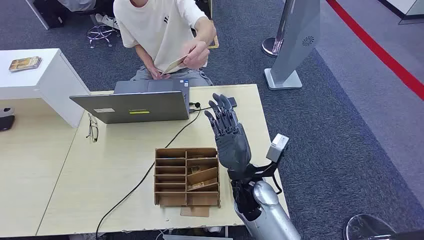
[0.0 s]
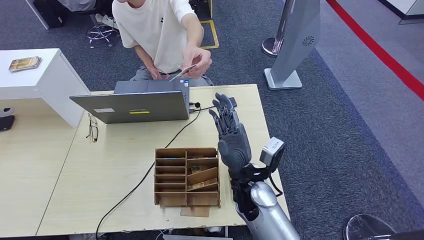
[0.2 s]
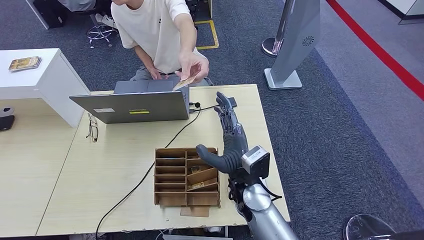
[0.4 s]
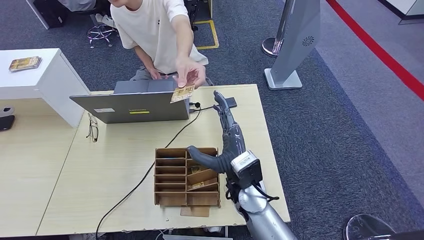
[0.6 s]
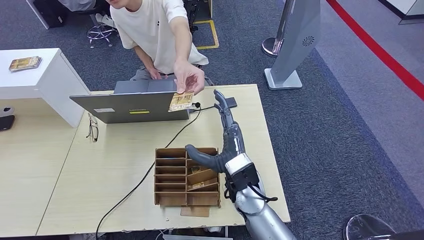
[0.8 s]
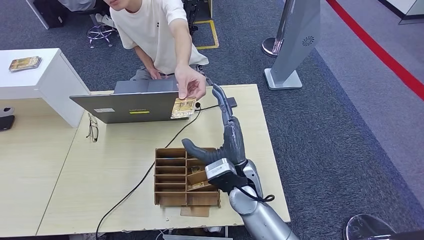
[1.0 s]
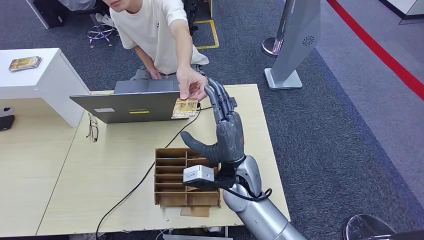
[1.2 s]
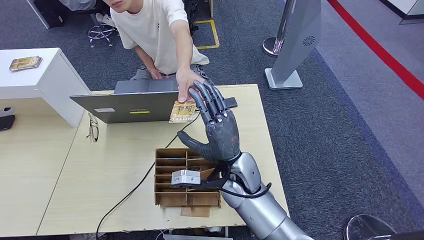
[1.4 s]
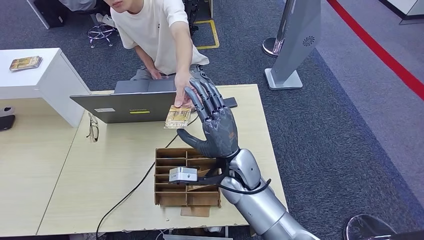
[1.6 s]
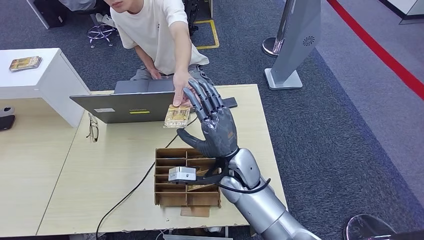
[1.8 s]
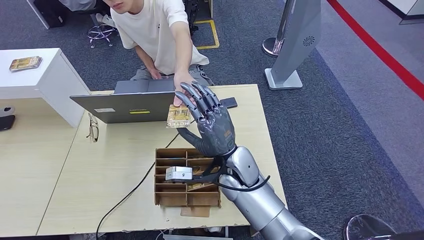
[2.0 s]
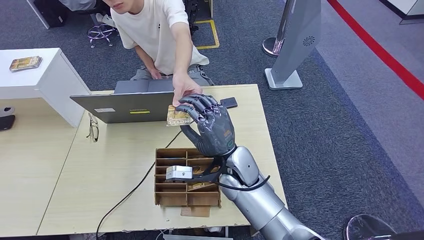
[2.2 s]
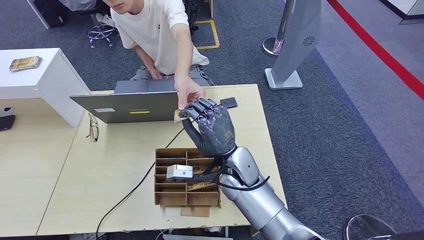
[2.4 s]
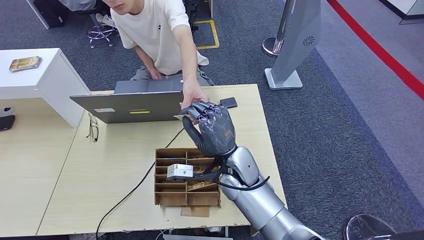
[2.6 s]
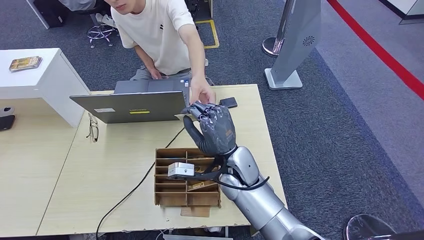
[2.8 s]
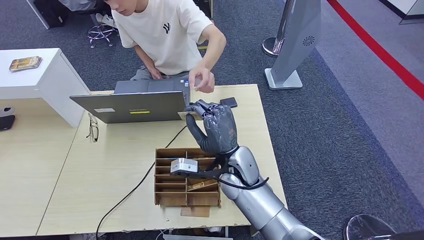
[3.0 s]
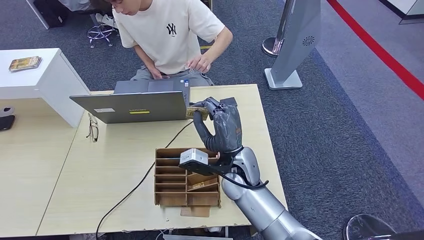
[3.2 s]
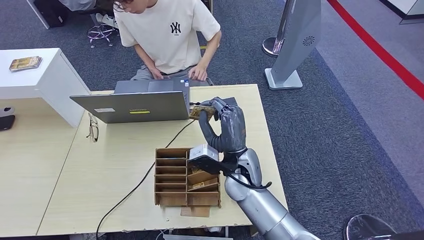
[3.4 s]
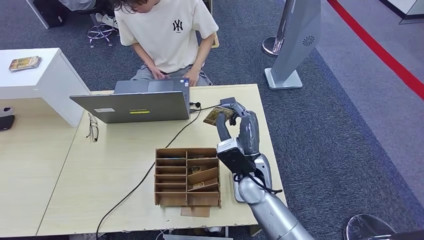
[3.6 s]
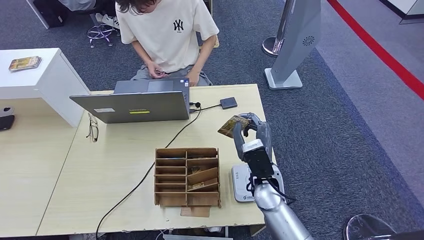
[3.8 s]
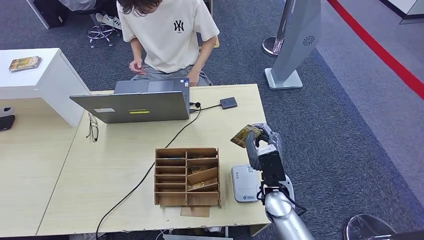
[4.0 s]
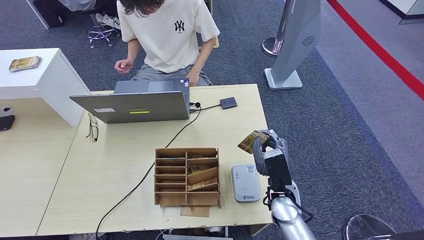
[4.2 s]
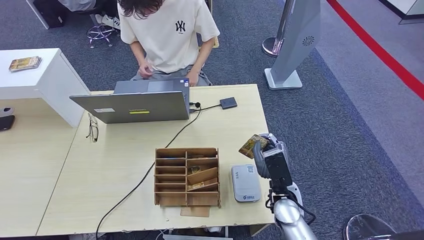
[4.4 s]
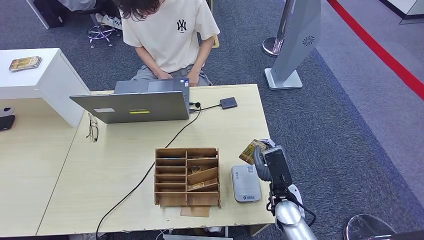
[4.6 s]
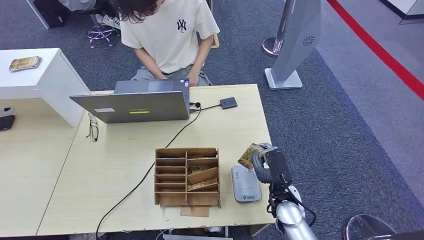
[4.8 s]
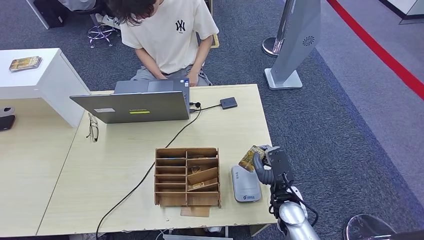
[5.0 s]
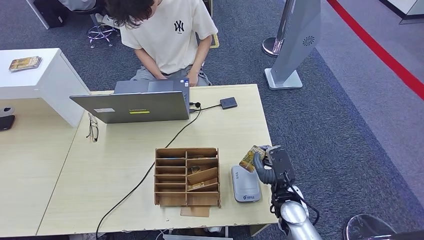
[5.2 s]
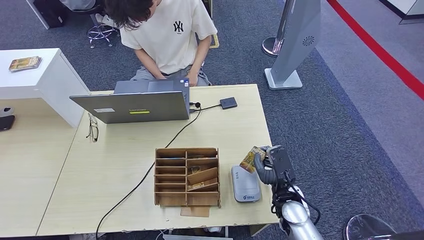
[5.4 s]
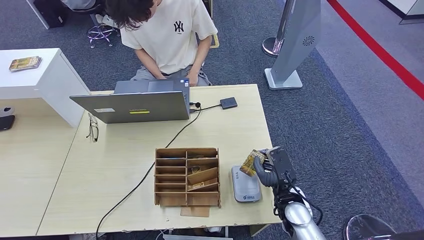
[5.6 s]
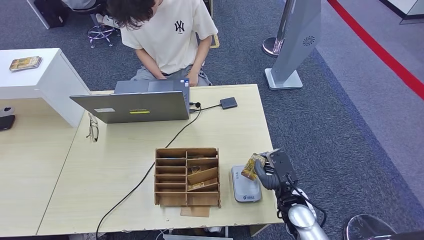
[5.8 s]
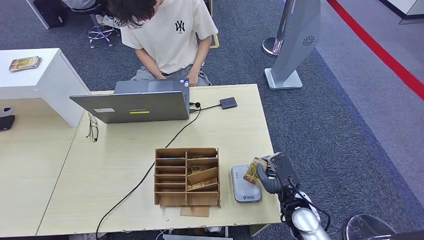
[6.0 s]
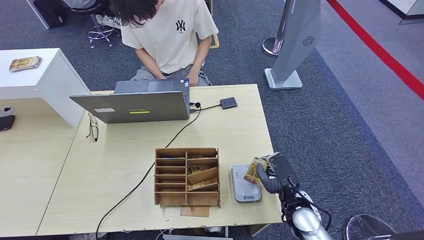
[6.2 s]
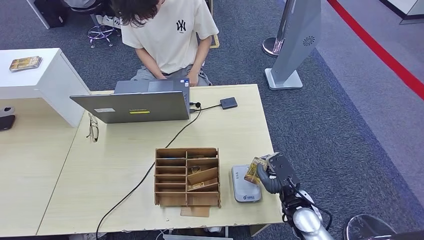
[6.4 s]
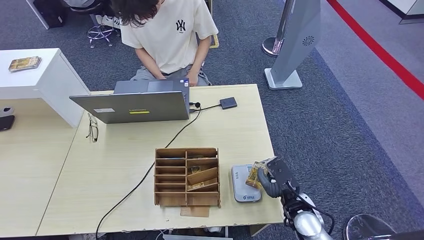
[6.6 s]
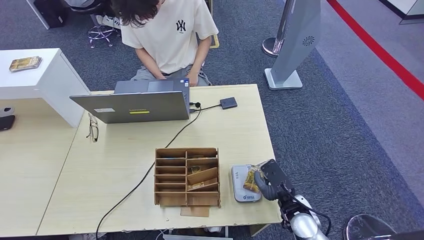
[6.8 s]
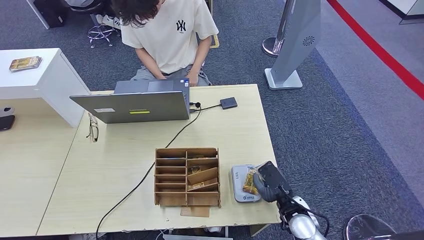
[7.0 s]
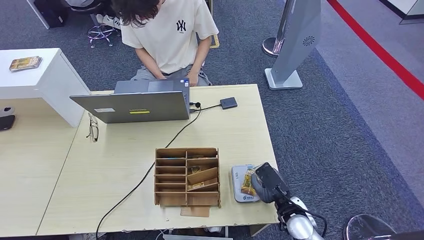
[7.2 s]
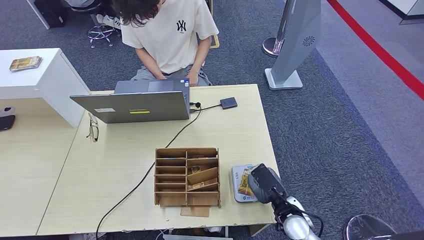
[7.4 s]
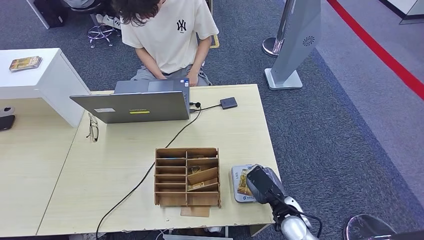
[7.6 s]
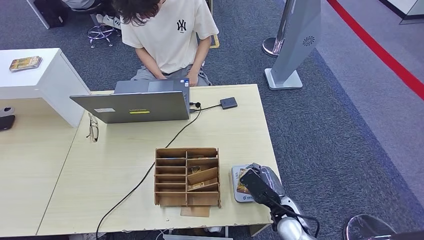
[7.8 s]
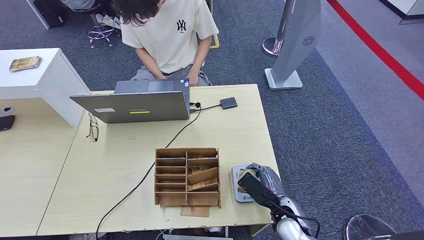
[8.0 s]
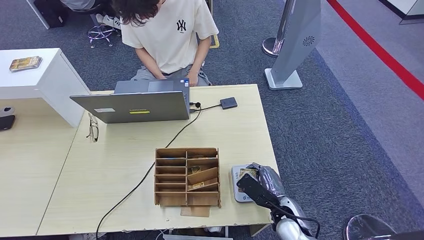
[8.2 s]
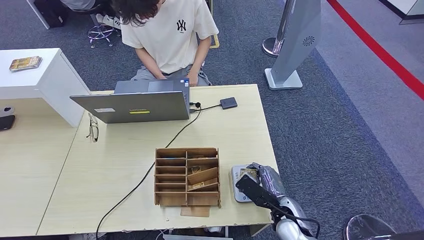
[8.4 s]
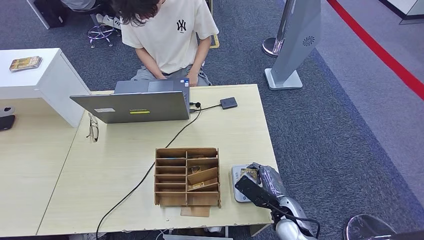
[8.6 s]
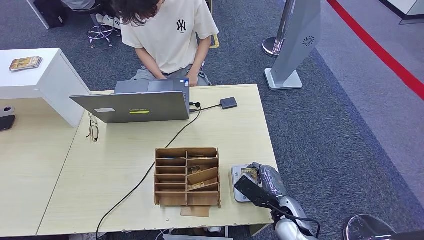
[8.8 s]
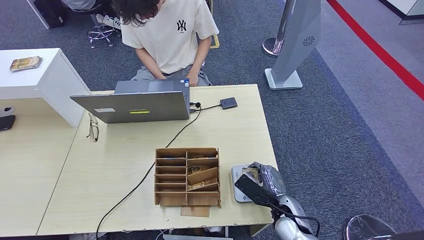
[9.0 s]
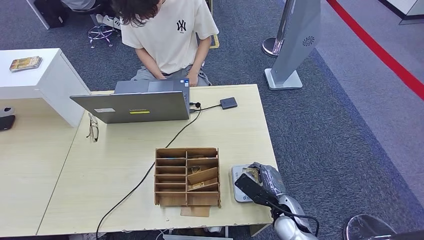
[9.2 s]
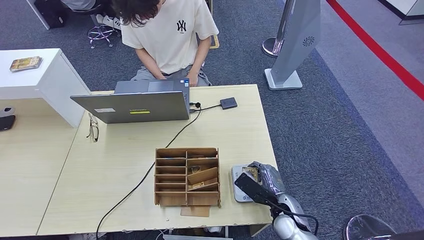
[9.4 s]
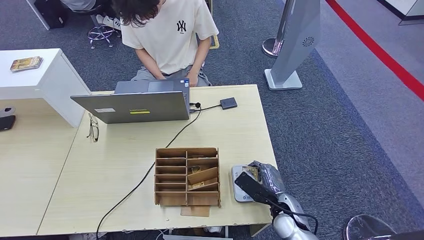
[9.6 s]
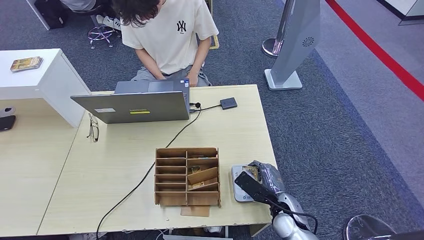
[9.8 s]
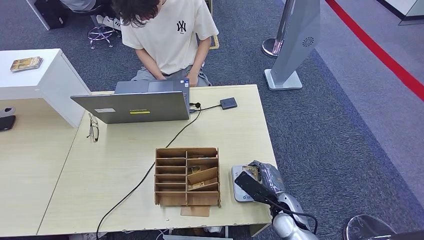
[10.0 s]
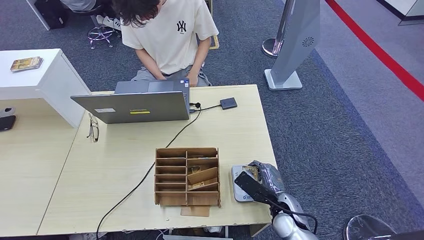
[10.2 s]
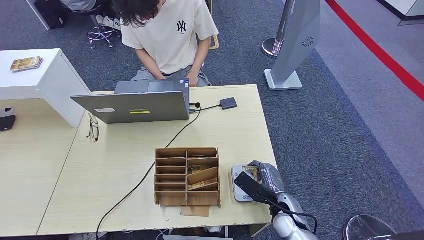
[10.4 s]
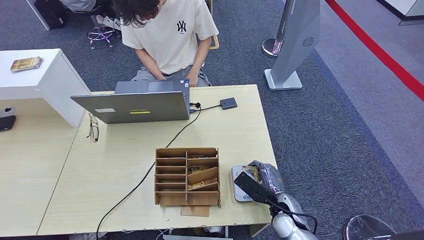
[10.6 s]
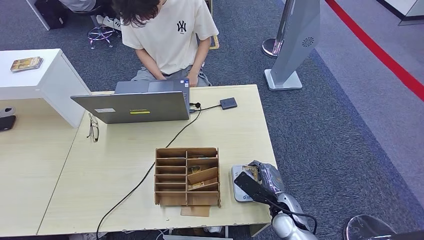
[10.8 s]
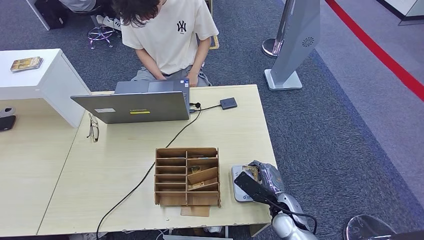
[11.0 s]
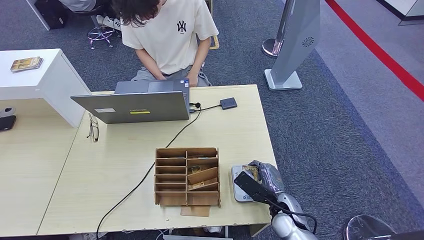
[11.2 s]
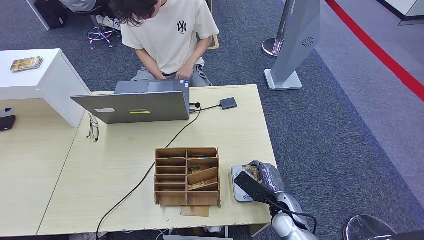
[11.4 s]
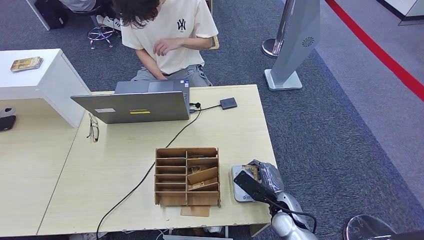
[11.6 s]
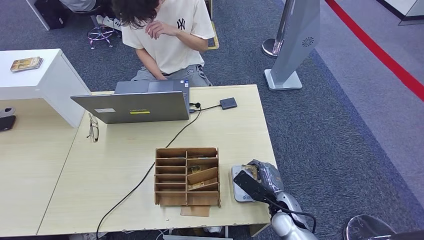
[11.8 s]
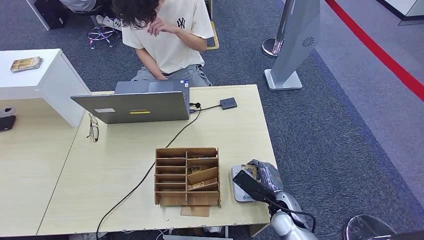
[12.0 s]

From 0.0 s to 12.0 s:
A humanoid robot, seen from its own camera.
Step, from 0.0 s to 2.8 s: Take the ID card from the person's hand.
Step, from 3.0 s to 7.8 s: Place the ID card on the card reader.
From 1.6 s to 3.0 s: There are only small adjustments of the hands.
From 3.0 s to 4.4 s: The right hand travels to the right, downward and backward by roughly 15 cm.
From 4.4 s to 6.0 s: The right hand moves roughly 5 cm.
From 6.0 s to 7.6 s: The hands stay close to where they were, moving slightly.
From 7.6 s to 9.0 s: There are only small adjustments of the hands.
From 9.0 s to 10.4 s: Both hands stay about where they are.
From 10.4 s to 12.0 s: Both hands stay put.

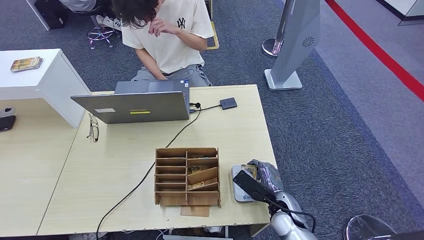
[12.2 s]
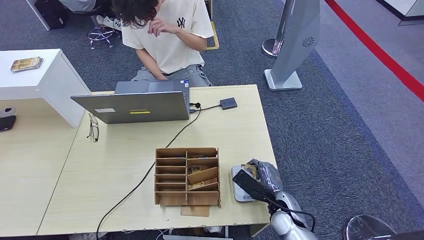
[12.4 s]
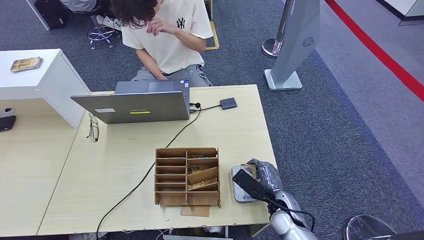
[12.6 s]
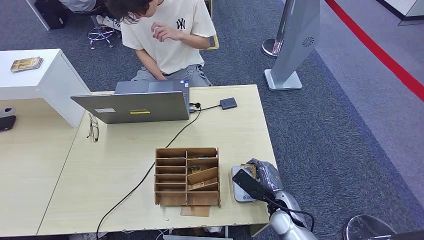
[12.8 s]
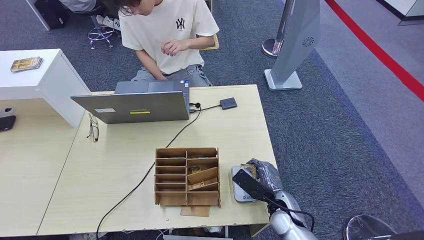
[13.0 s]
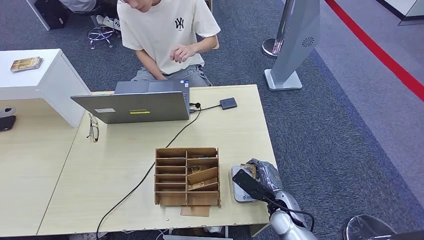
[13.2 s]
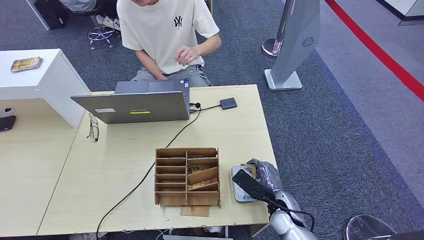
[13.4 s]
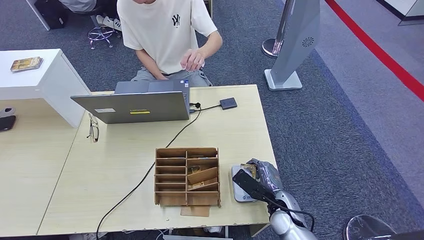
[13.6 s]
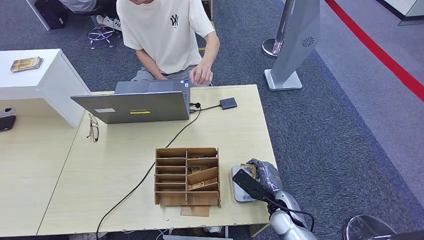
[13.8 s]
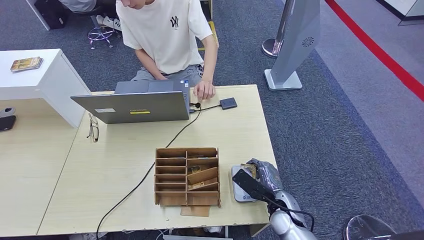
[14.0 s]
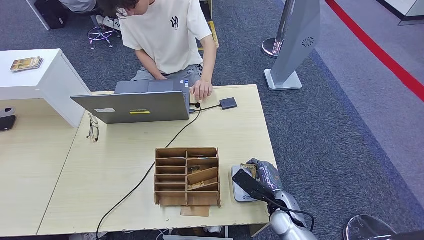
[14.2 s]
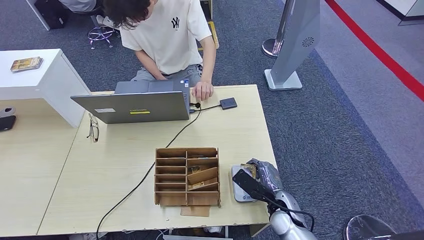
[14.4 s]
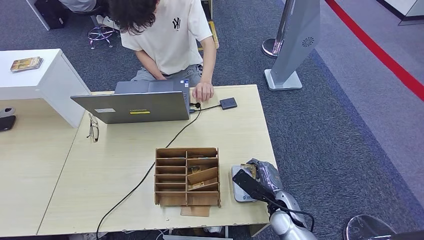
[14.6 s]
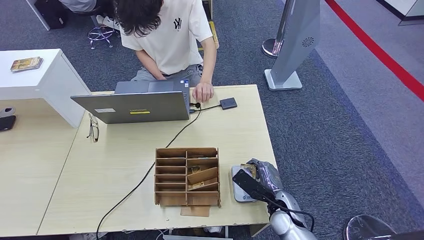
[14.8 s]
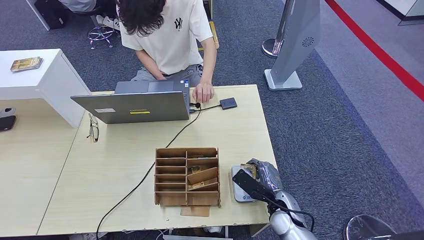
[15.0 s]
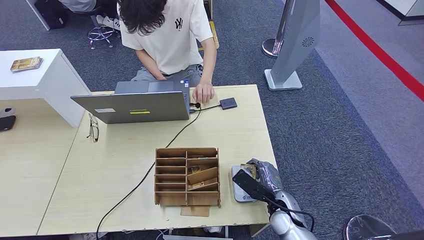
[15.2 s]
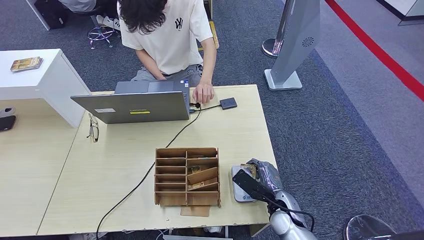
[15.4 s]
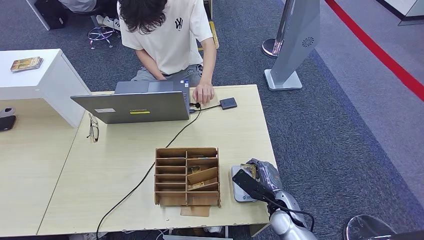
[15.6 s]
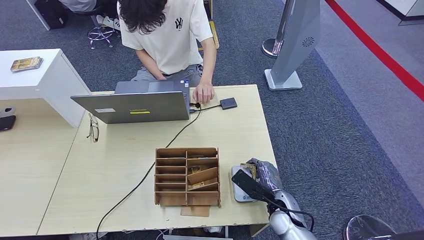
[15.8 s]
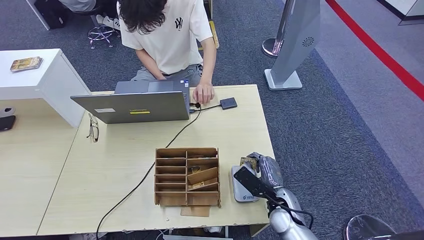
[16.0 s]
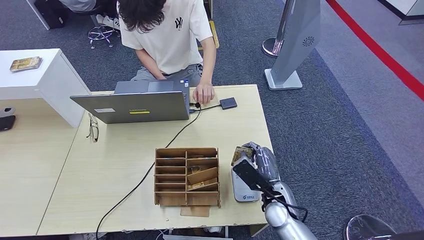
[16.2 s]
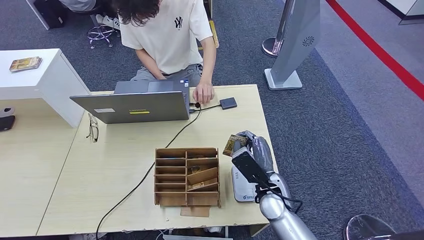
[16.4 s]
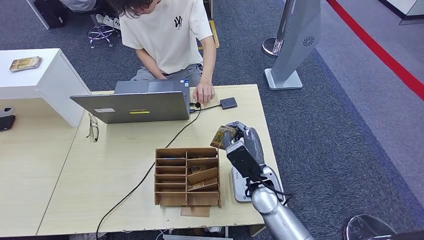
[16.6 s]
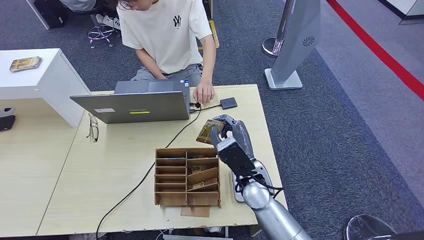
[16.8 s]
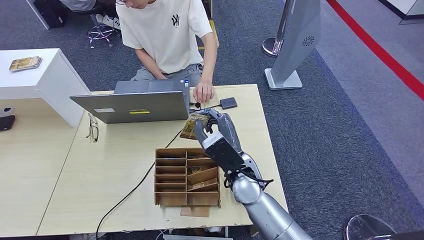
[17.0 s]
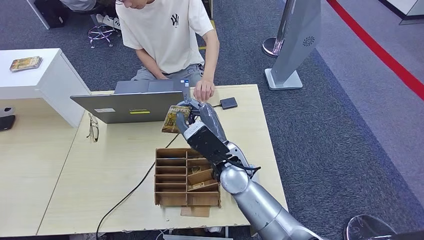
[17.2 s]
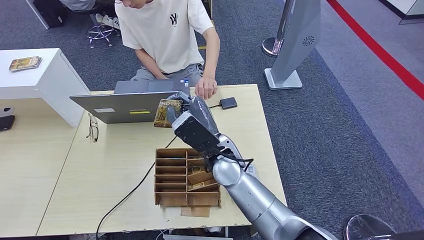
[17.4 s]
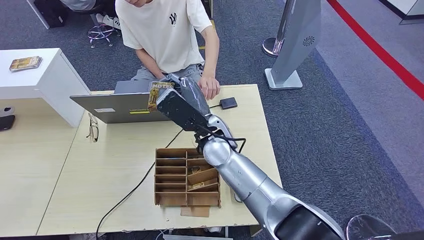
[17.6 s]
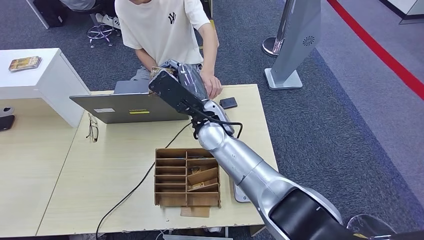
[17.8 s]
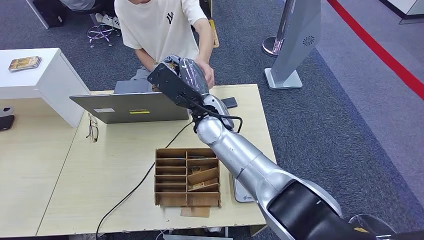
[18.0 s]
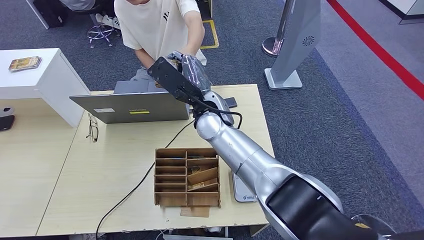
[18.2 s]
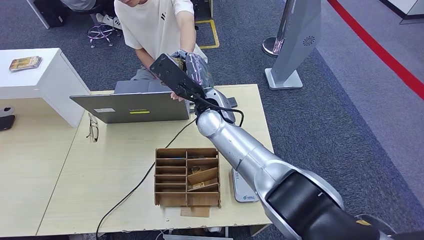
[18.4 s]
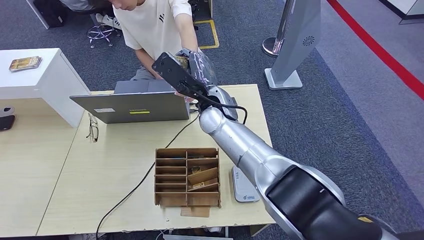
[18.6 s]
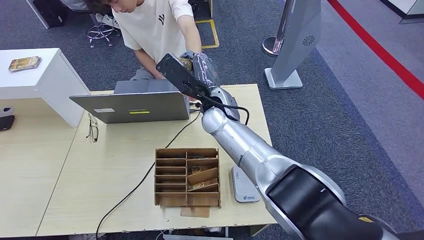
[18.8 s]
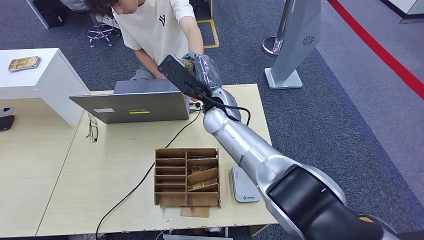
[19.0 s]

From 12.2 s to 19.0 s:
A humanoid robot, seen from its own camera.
From 12.2 s to 15.0 s: The two hands keep their place.
From 15.0 s to 16.2 s: The hands make only small movements.
From 16.2 s to 17.6 s: The right hand goes some 25 cm upward, to the left and forward.
From 17.6 s to 19.0 s: The left hand moves approximately 5 cm, while the right hand travels forward by about 5 cm.